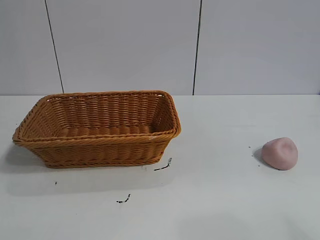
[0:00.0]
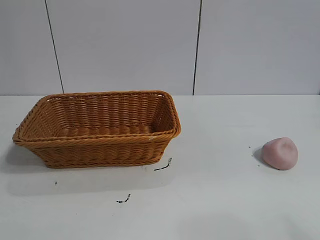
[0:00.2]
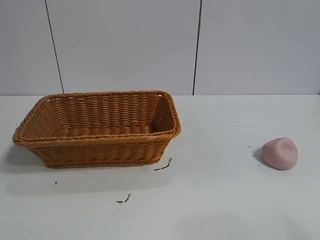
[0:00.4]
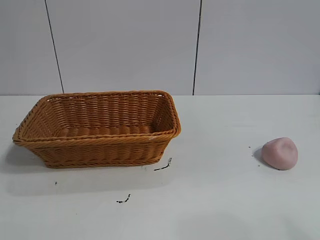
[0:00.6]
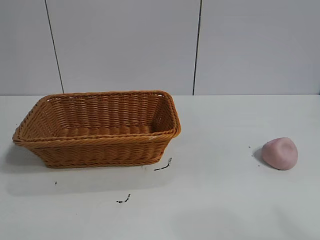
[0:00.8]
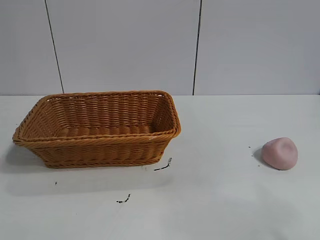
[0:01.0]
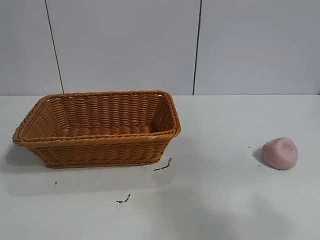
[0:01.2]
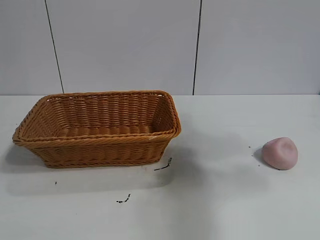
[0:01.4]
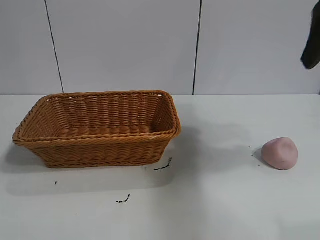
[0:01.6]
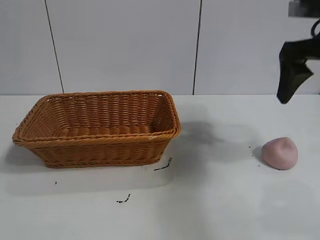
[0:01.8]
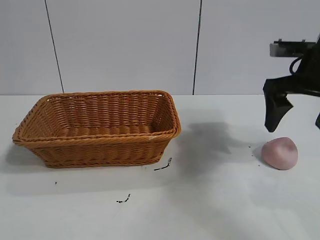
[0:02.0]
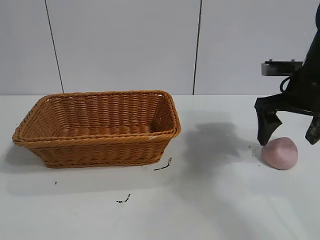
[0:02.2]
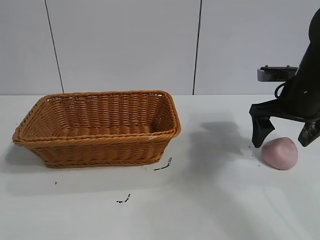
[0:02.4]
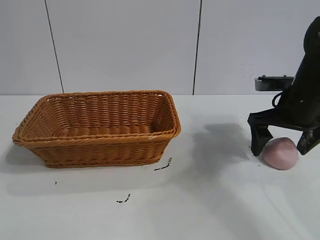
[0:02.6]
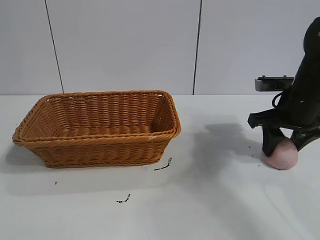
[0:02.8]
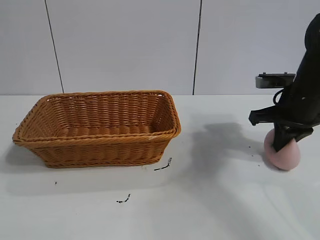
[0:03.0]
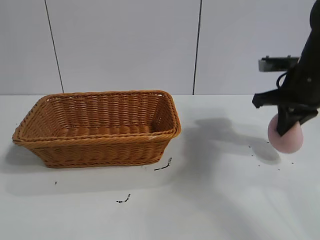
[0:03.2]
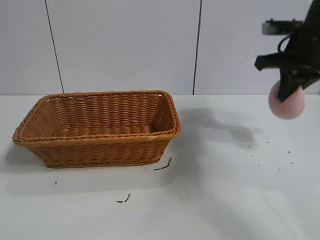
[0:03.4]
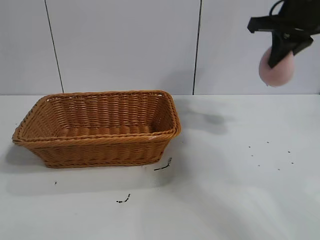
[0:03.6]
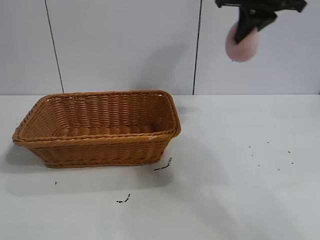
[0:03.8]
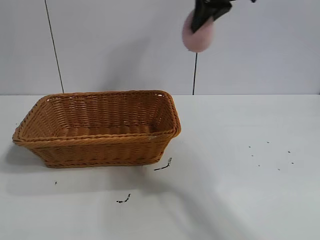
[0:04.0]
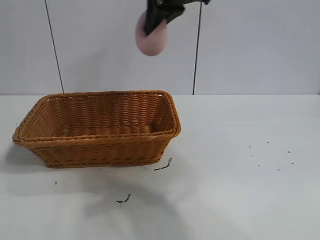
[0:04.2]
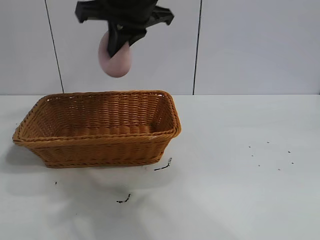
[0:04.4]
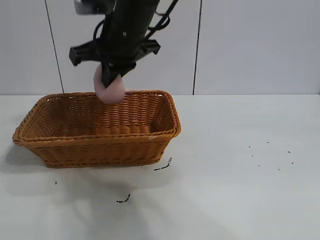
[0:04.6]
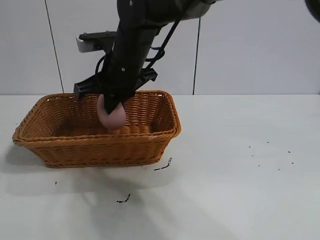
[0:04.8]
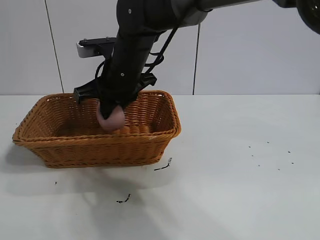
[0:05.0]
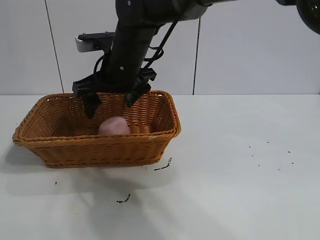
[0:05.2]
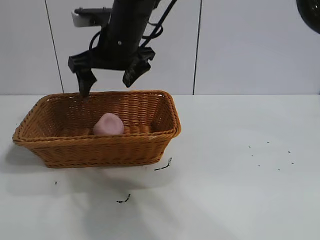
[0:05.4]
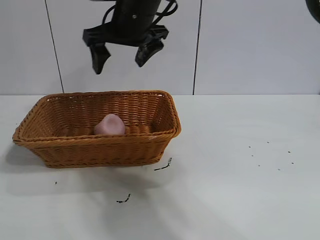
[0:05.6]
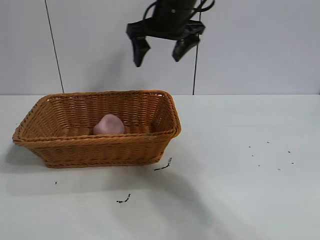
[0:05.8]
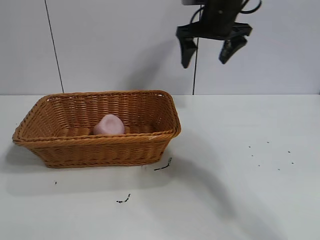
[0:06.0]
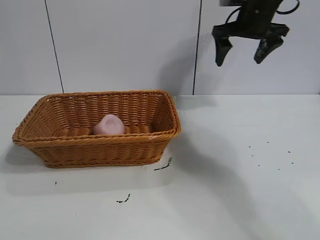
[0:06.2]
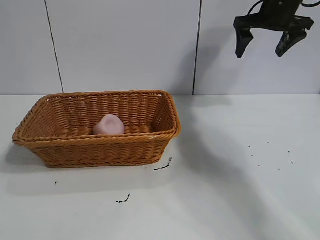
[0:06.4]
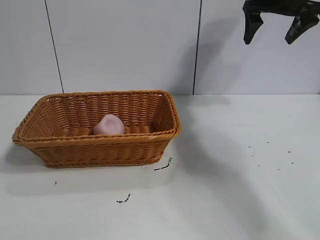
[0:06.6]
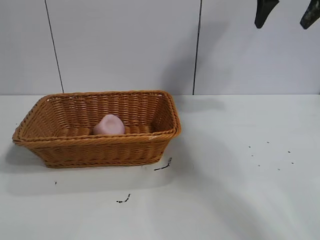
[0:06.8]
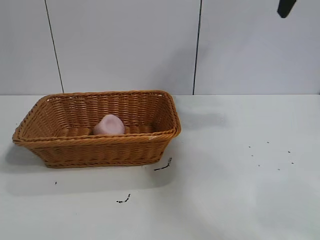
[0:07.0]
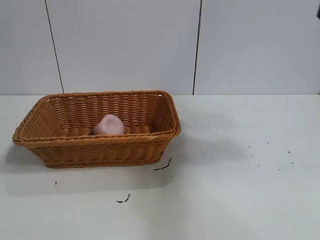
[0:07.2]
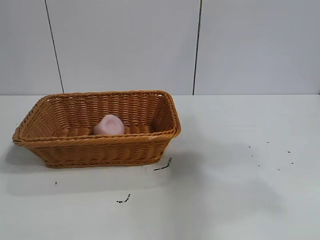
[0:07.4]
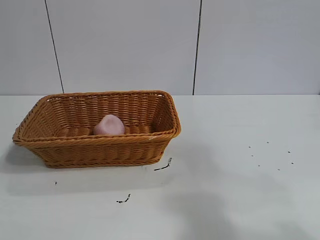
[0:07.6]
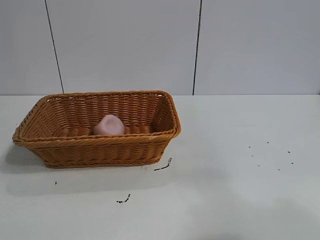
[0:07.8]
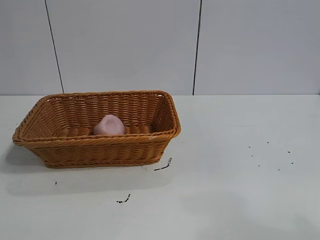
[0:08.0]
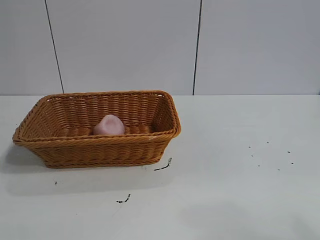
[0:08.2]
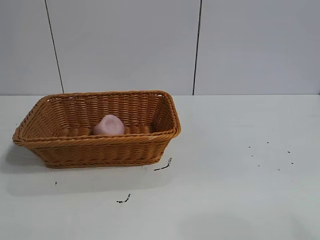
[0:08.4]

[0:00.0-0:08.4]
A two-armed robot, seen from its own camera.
Task of the whole recording: pick up the peach and put it into the basket.
Step, 0:00.8 to 0:03.0: Grasp the peach with right gripper.
Step, 0:03.2 to 0:05.4: Place the peach in the basket with right gripper.
